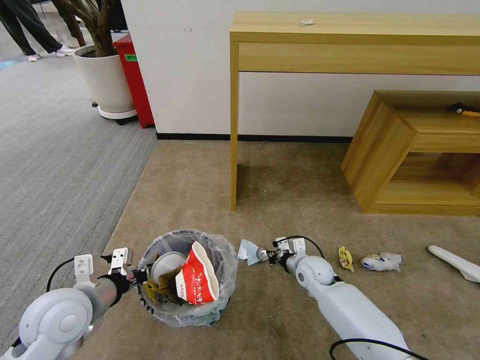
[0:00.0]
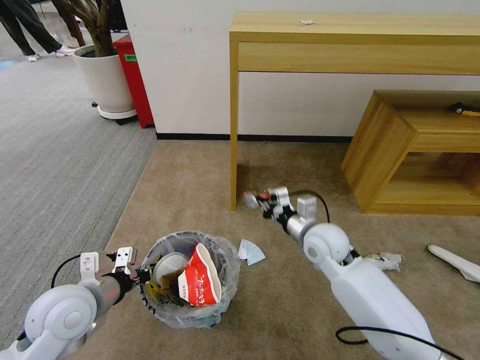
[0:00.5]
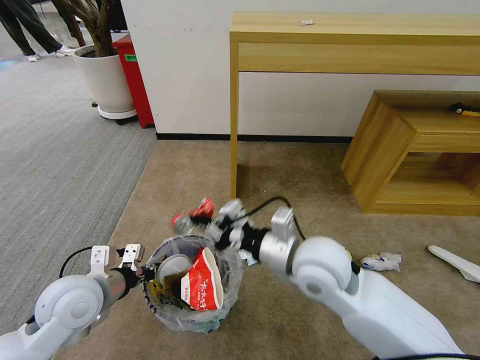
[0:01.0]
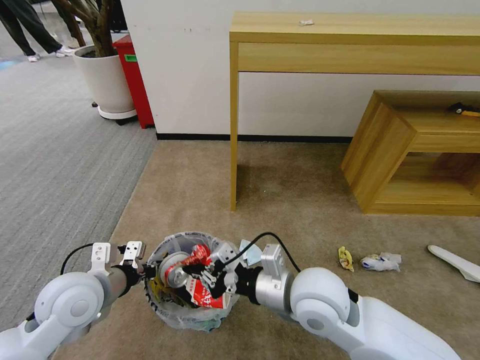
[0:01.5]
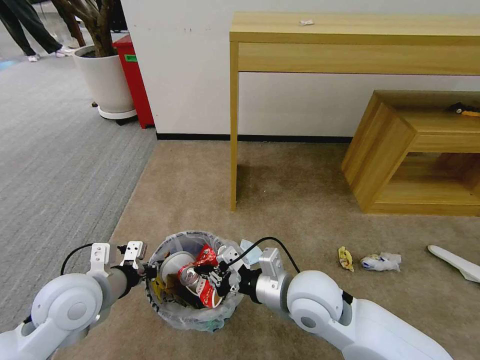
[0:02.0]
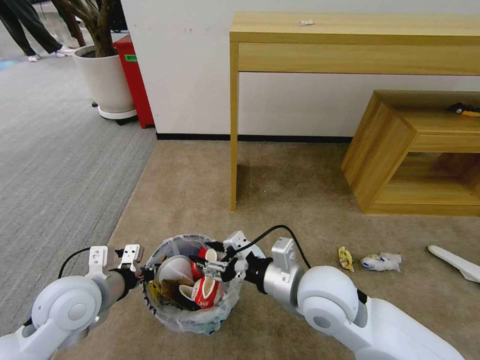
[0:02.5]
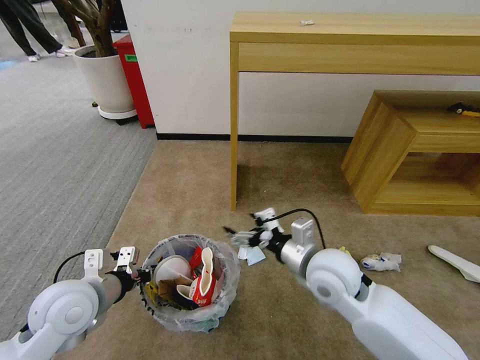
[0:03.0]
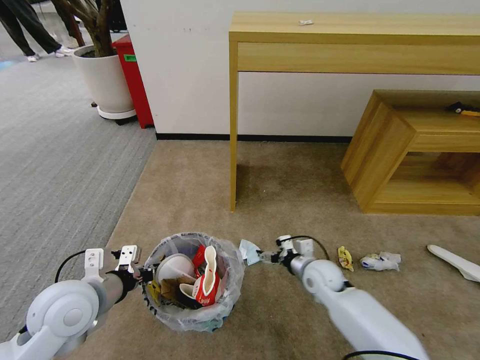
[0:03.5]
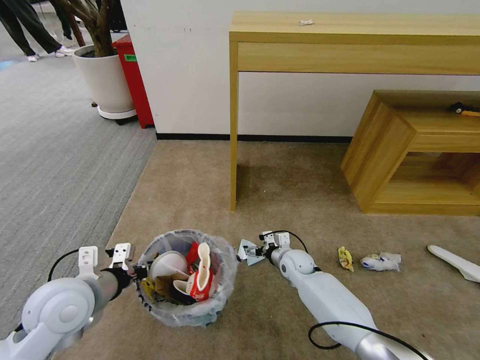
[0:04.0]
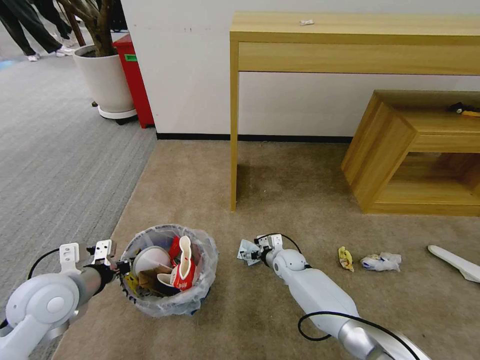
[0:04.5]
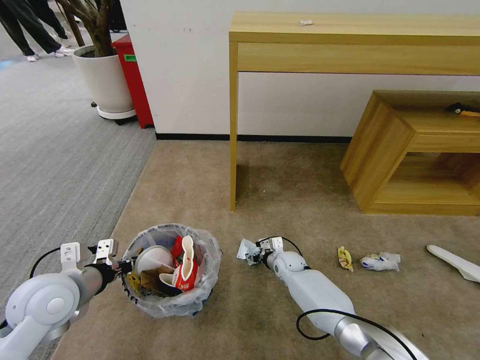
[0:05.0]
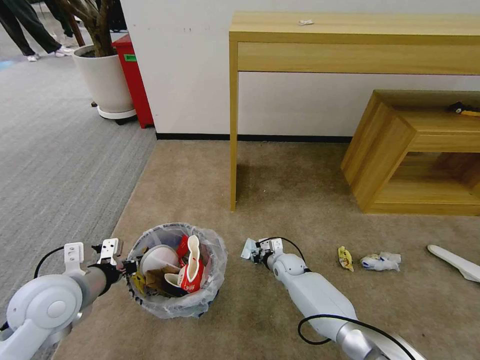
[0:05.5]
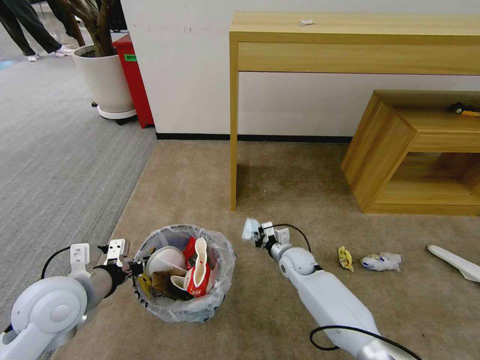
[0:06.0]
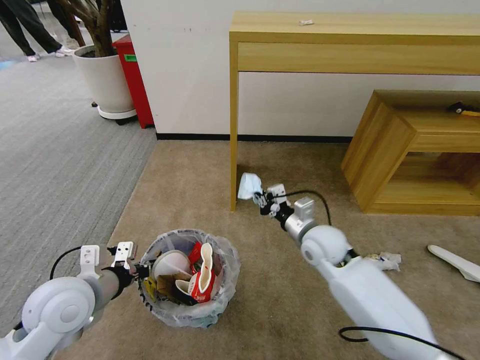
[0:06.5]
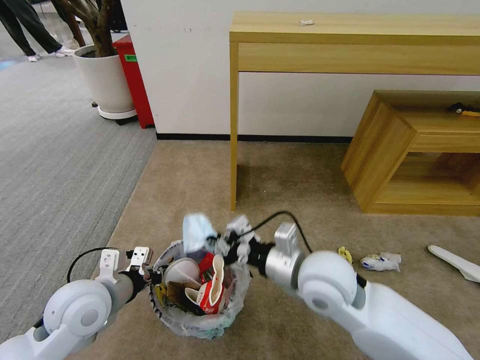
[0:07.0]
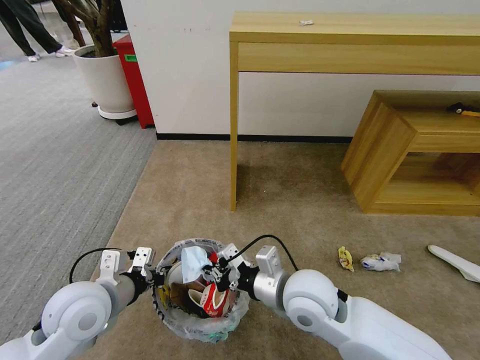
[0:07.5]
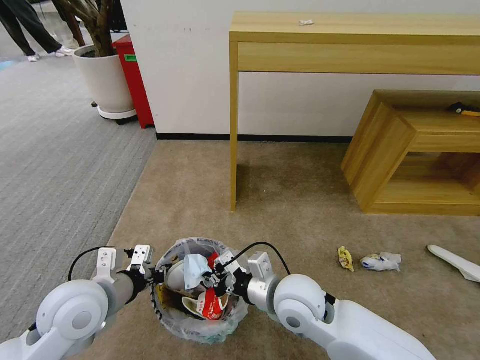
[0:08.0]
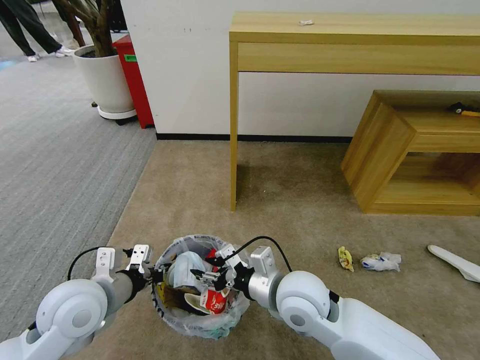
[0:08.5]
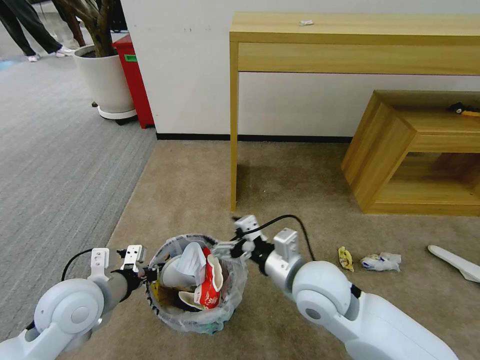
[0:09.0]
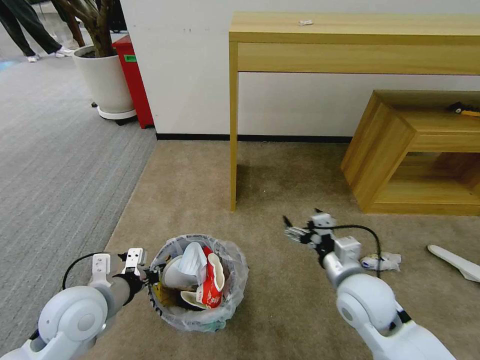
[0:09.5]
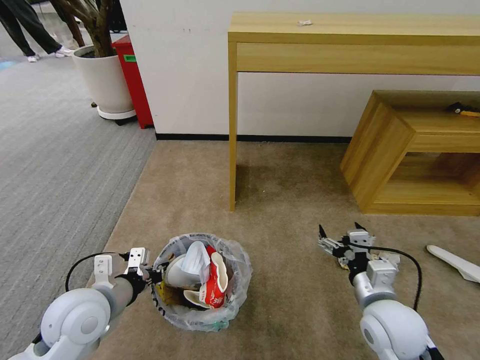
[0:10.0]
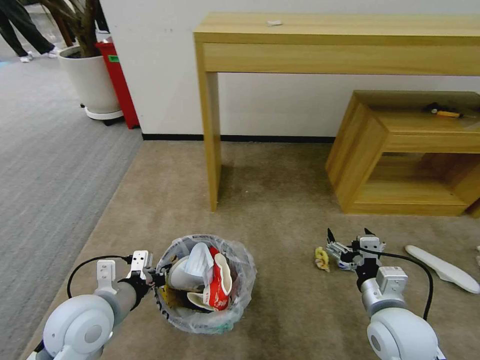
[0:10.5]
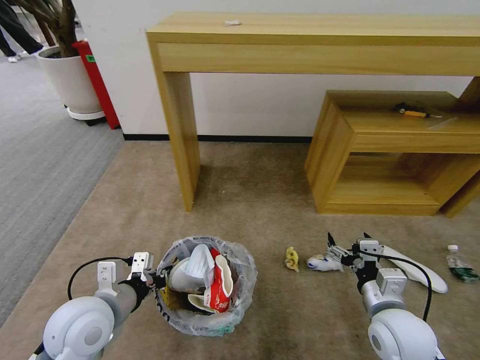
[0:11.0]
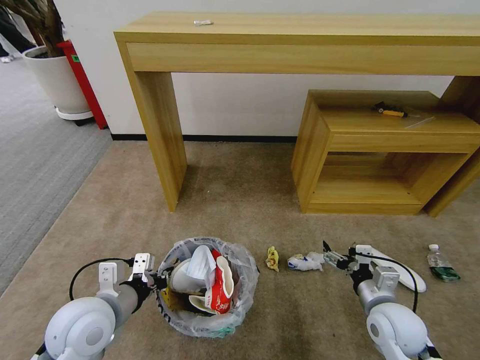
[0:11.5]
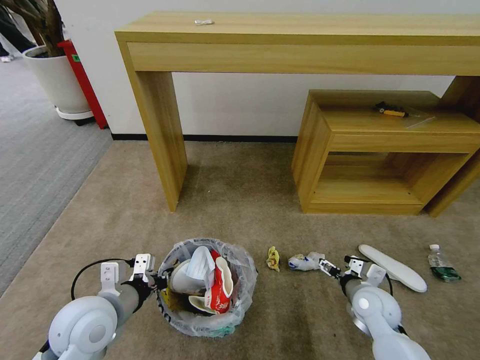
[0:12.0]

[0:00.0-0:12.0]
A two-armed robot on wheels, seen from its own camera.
Task of the whole recording: Pick up the trash bin and place the garbage on the floor into it.
0:00.0 to 0:02.0: The right gripper travels upward, backward and to the left by some 25 cm.
0:02.0 to 0:04.0: The right gripper is displaced downward and forward by approximately 30 cm, and opens.
0:04.0 to 0:06.0: The right gripper closes up.
0:06.0 to 0:08.0: The right gripper travels upward and backward by roughly 25 cm.
0:08.0 to 0:10.0: The right gripper goes about 15 cm to the right, and opens.
0:10.0 to 0:12.0: The right gripper moves downward, forward and to the right, some 10 cm.

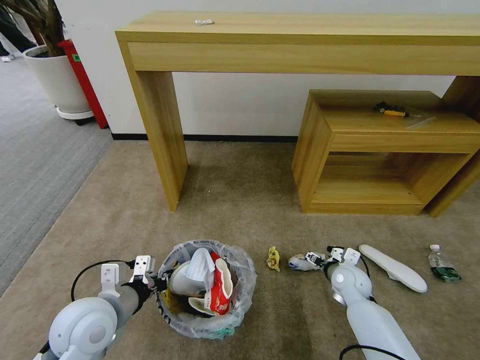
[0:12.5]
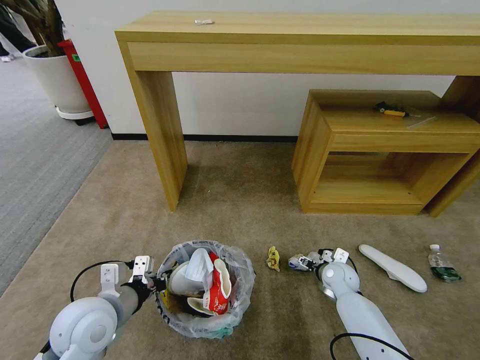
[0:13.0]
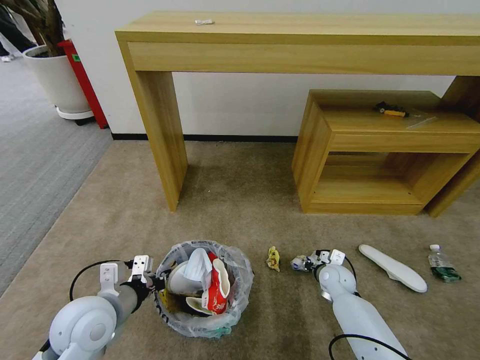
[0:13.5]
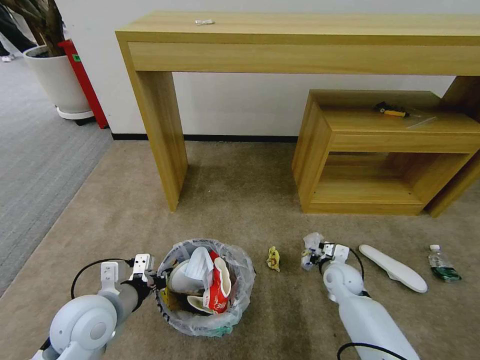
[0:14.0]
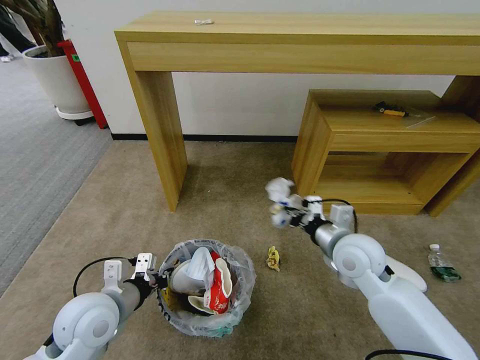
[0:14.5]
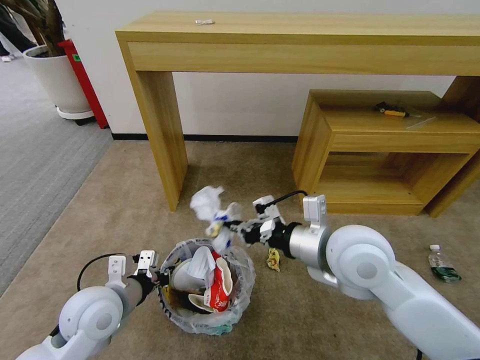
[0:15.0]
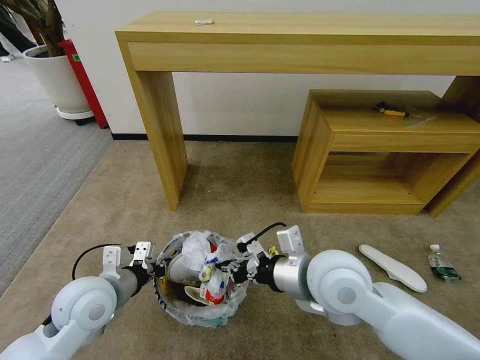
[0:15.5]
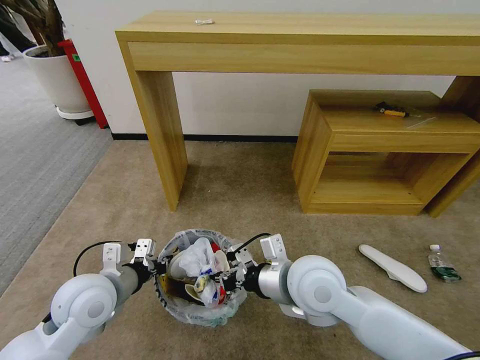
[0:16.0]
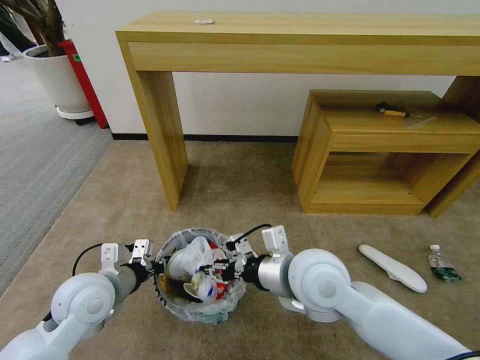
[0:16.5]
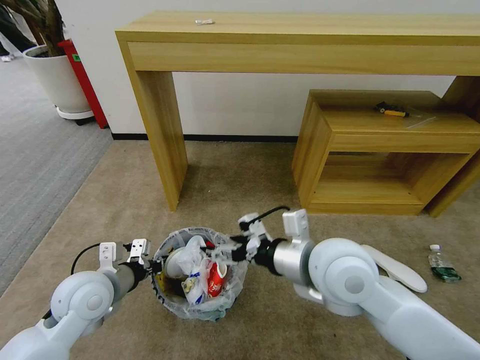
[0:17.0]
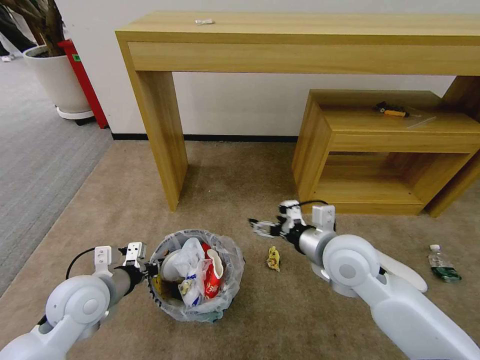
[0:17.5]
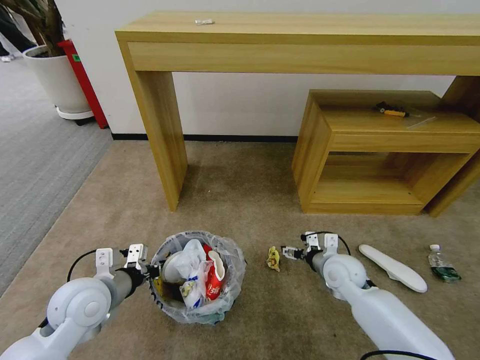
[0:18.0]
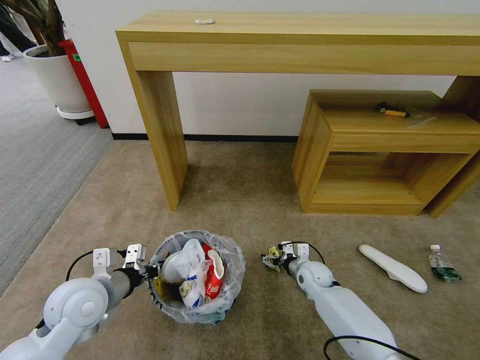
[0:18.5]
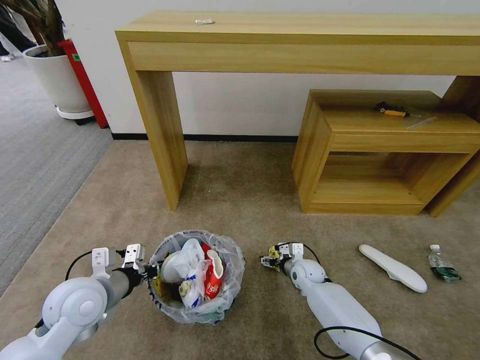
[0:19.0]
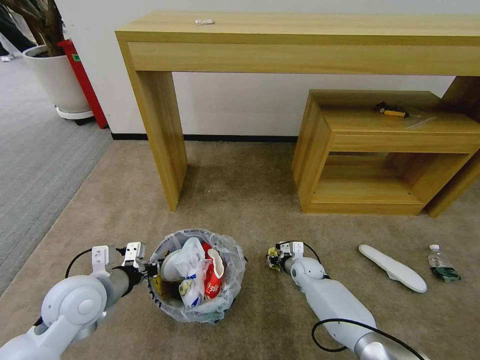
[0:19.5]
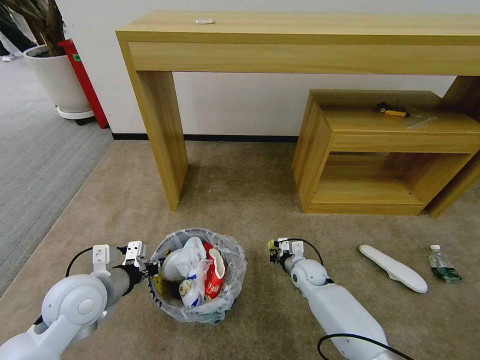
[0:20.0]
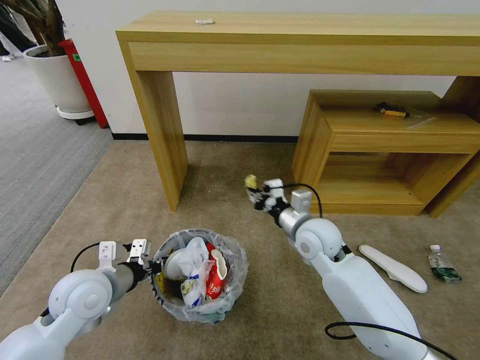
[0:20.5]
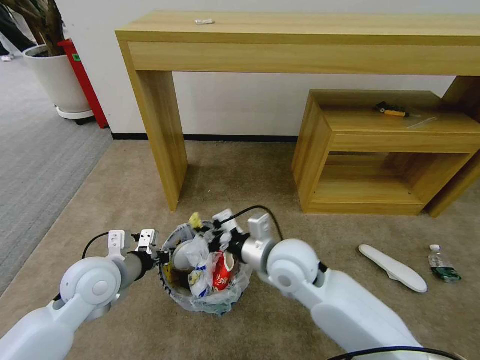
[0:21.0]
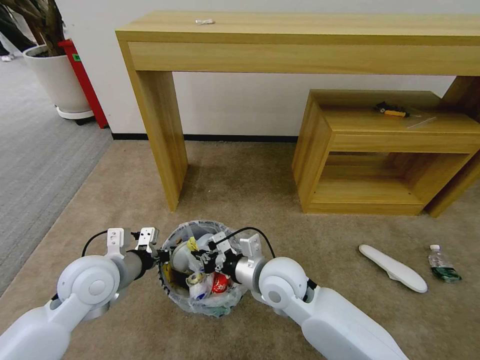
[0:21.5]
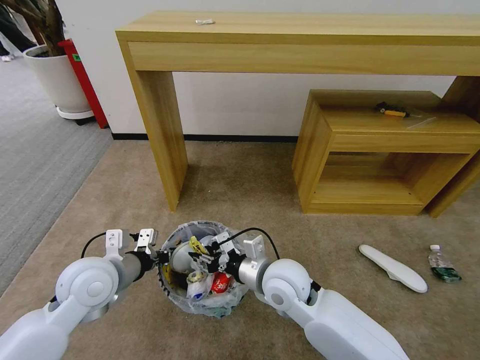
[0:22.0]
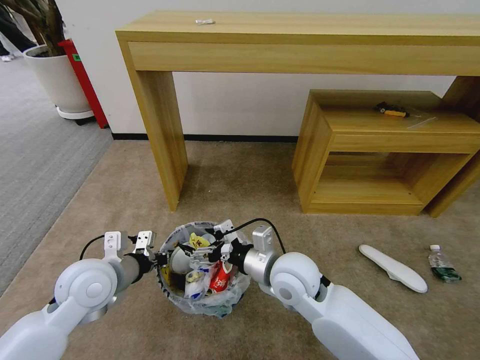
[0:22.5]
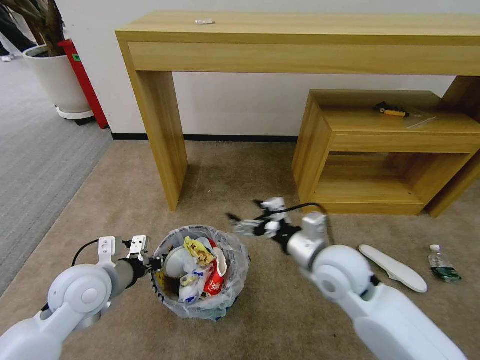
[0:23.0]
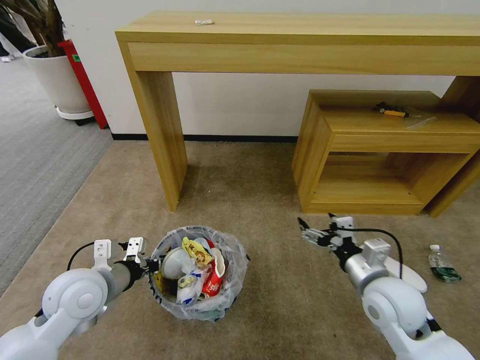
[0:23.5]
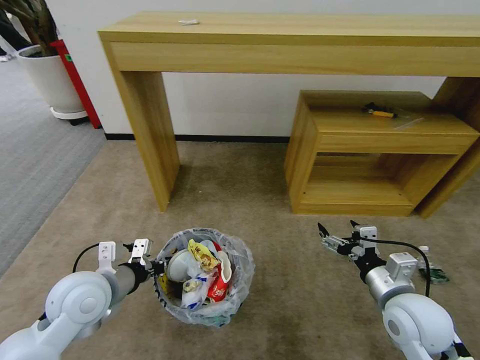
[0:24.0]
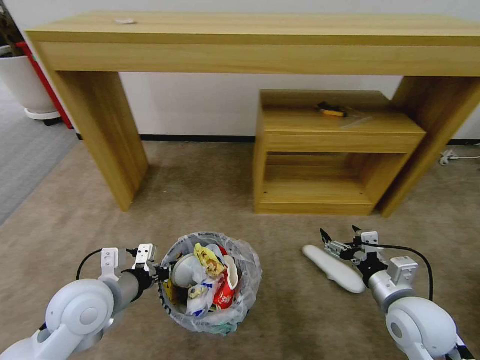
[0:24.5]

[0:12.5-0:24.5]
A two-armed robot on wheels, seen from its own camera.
Task of the whole recording: Pick up the trash bin and place the garbage on the floor into it.
0:12.5 to 0:14.5: The right gripper heads upward, covering about 20 cm, and closes its fingers.
0:14.5 to 0:16.5: The right gripper travels to the left, backward and upward by approximately 15 cm, and opens up.
0:16.5 to 0:18.5: The right gripper travels downward and forward by roughly 30 cm, and opens its fingers.
0:18.5 to 0:20.5: The right gripper shifts roughly 20 cm upward, and closes.
0:20.5 to 0:22.5: The right gripper moves backward and to the left, some 10 cm, and opens up.
0:22.5 to 0:24.5: The right gripper shifts about 20 cm to the right.

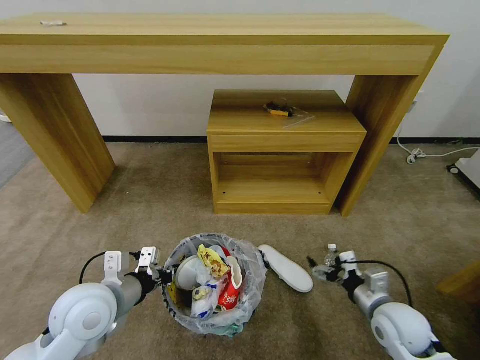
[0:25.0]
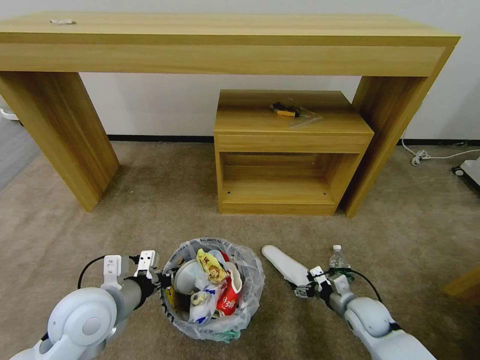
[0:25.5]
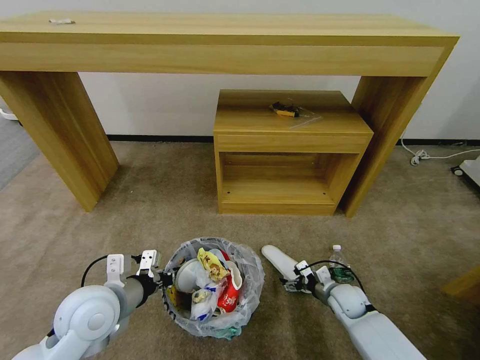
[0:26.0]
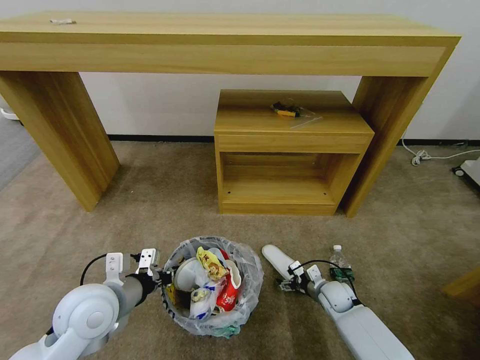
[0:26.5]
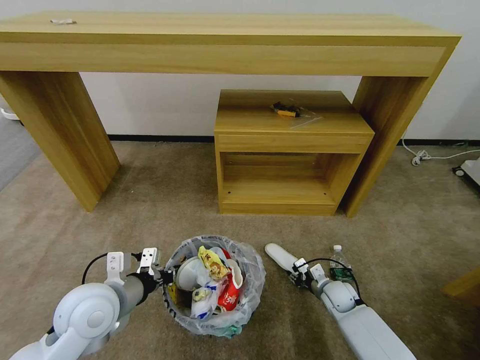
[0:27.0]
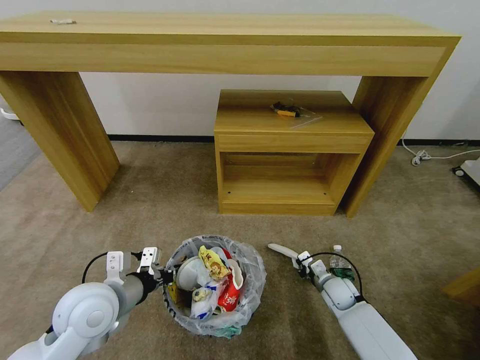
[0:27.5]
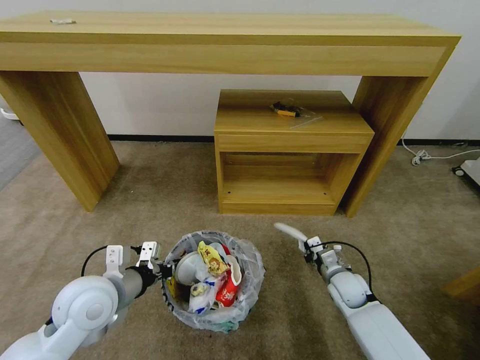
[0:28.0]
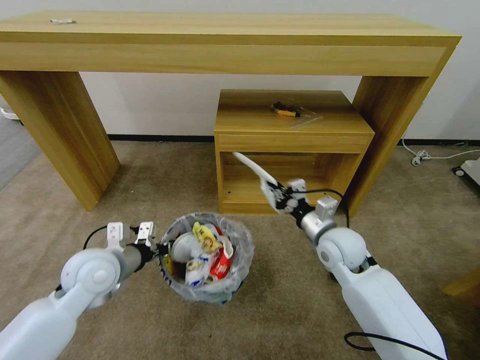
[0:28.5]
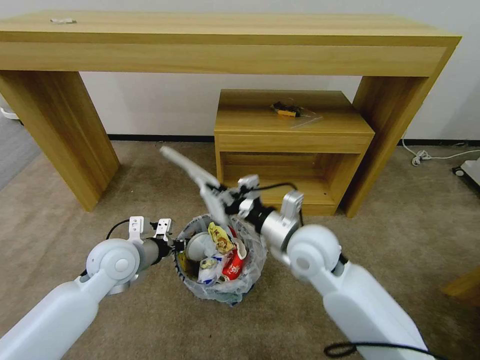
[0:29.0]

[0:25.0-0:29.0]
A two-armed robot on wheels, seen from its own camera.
Task of the whole recording: Pick up the trash bin and place the garbage on the floor into it.
0:25.0 to 0:27.0: The right gripper shifts approximately 20 cm downward and forward, and closes up.
0:27.0 to 0:29.0: The left gripper shifts some 10 cm forward. Meanwhile the right gripper is displaced upward and to the left by about 35 cm, and closes.
